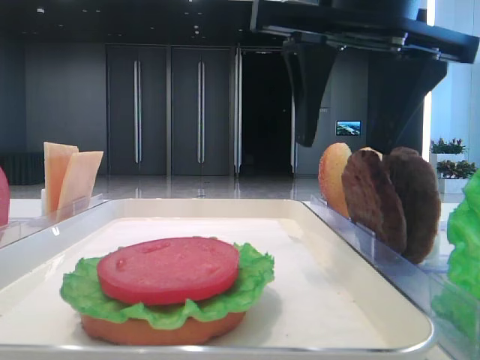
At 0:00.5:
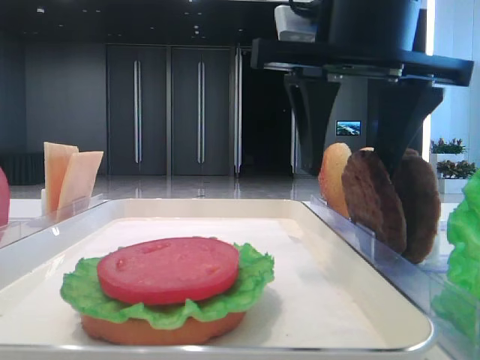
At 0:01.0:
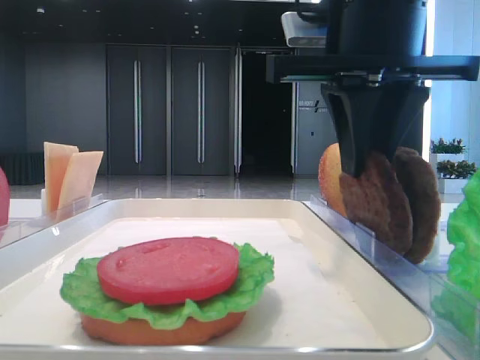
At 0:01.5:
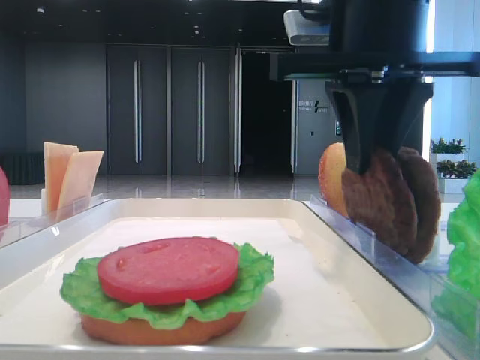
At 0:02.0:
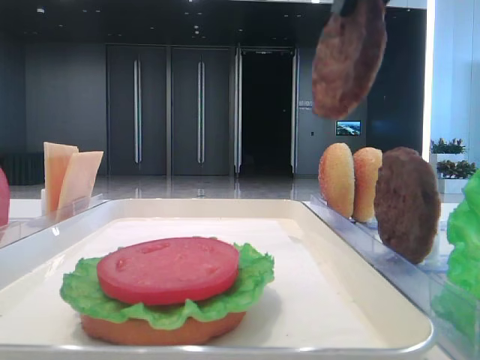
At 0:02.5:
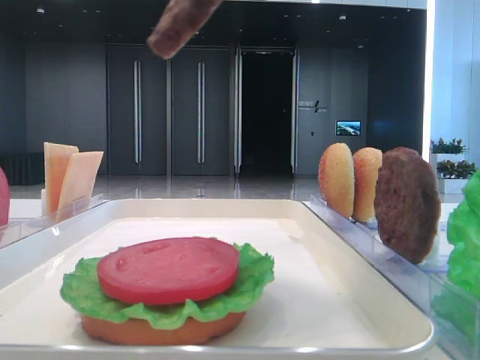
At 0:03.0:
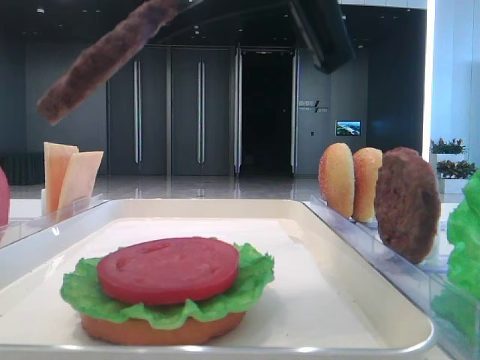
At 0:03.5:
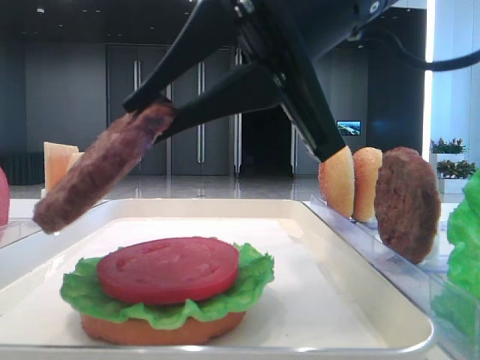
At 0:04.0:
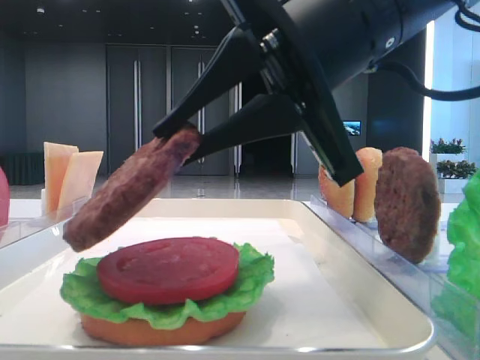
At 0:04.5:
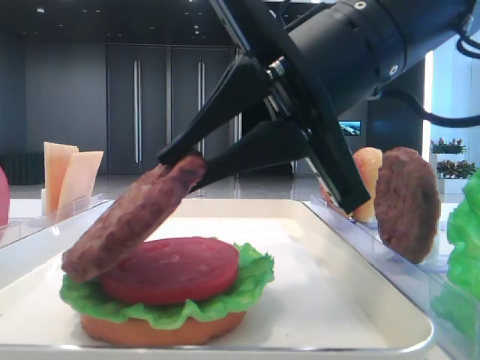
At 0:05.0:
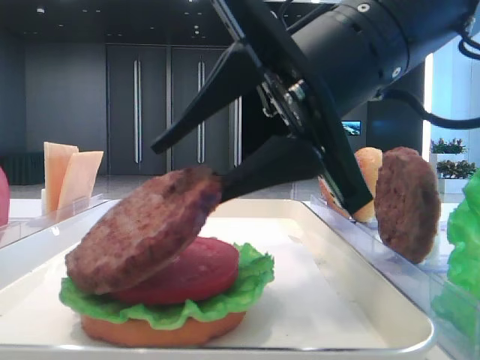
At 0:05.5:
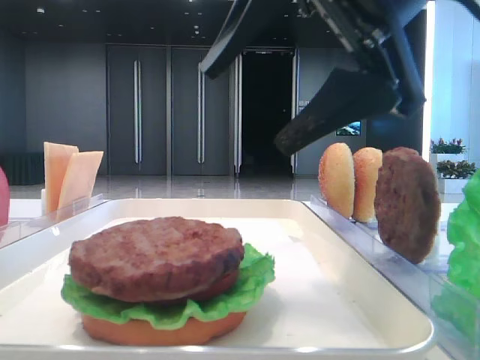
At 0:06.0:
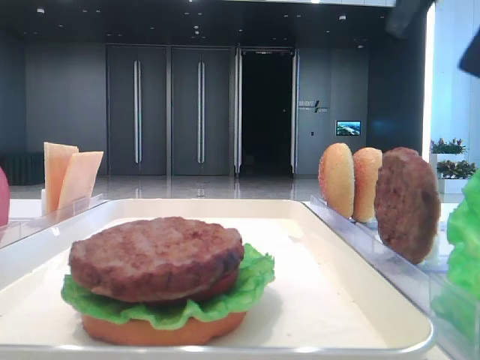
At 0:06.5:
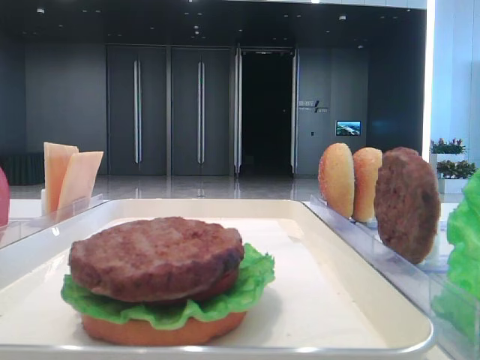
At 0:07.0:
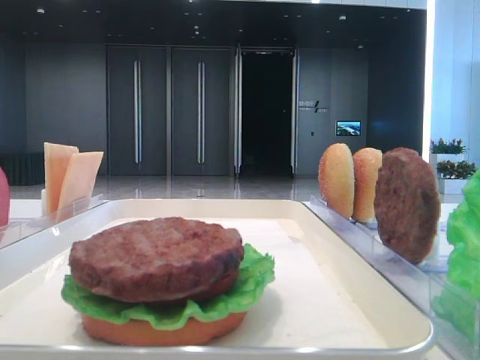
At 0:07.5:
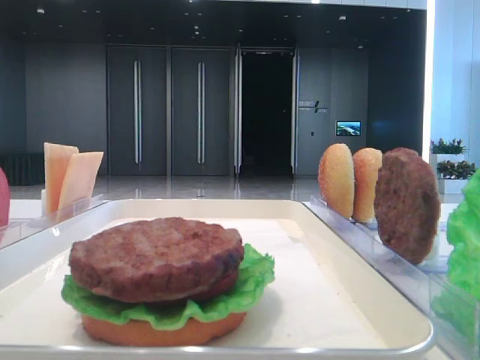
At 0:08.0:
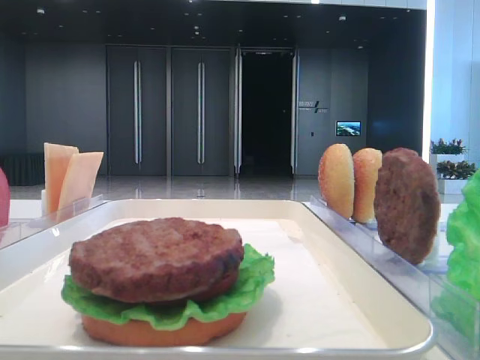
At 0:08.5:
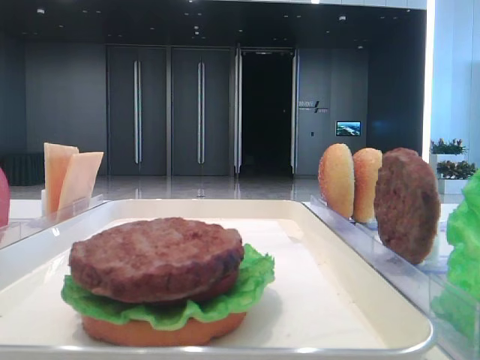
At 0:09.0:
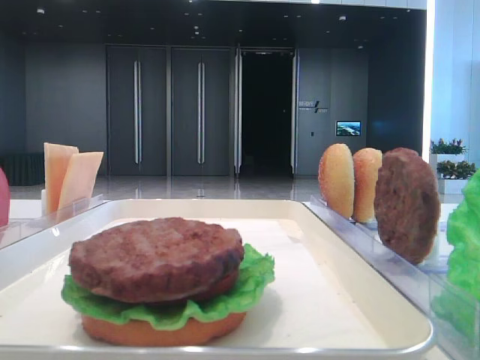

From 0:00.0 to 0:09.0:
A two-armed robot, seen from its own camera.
Step, from 0:01.5 to 0:05.0: Place the patty on the tomato slice with the right hand.
From 0:00.0 to 0:02.0: The right gripper shifts about 10 cm upward, and closes.
From 0:02.0 to 0:04.5: The right gripper heads downward, covering approximately 15 cm.
From 0:04.5 to 0:07.0: The right gripper moves to the right, backward and upward, about 30 cm, and opens its fingers.
